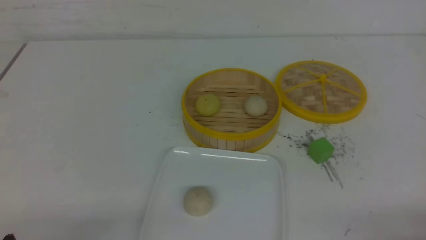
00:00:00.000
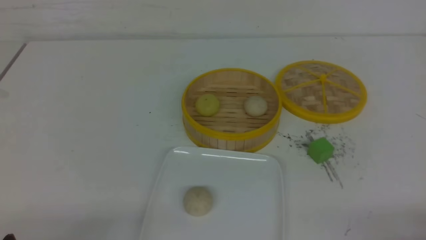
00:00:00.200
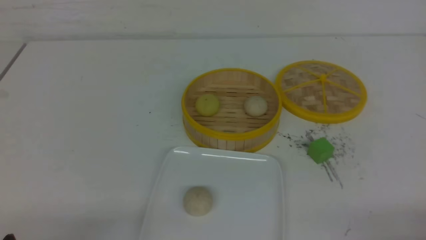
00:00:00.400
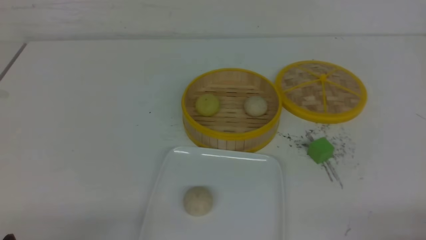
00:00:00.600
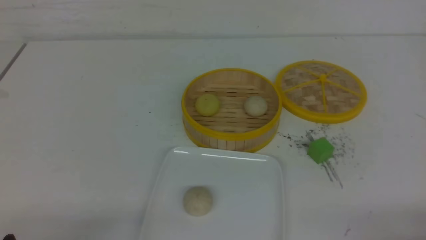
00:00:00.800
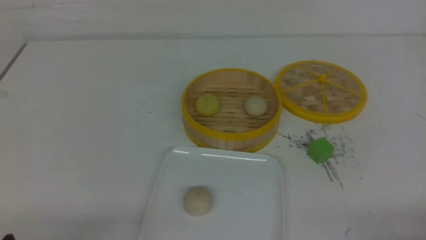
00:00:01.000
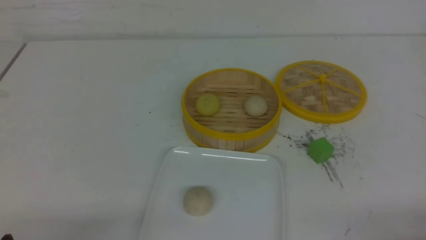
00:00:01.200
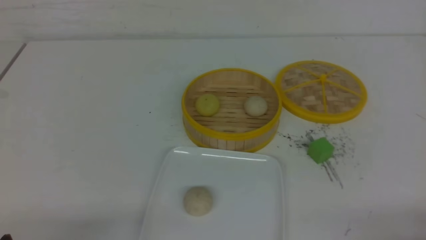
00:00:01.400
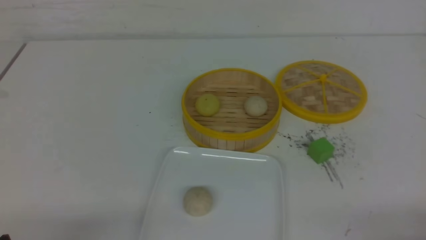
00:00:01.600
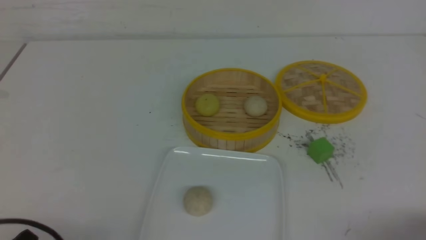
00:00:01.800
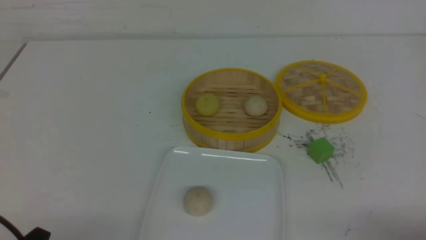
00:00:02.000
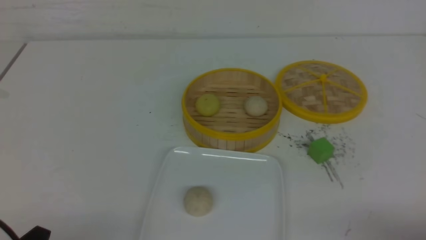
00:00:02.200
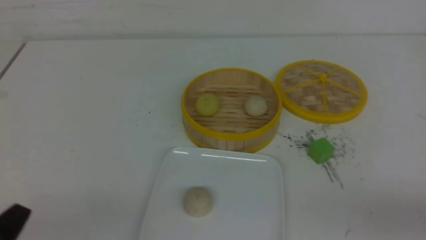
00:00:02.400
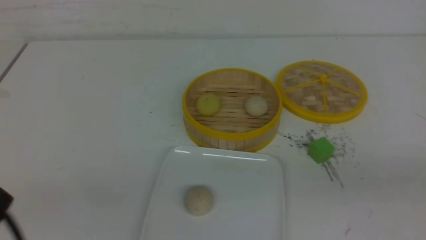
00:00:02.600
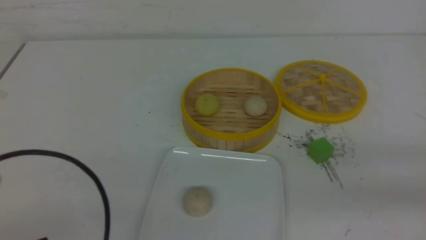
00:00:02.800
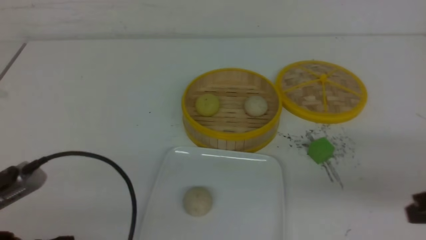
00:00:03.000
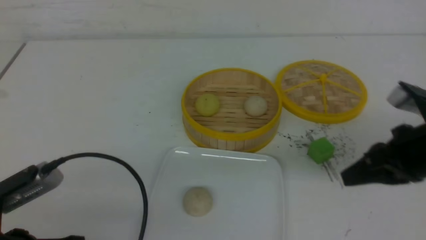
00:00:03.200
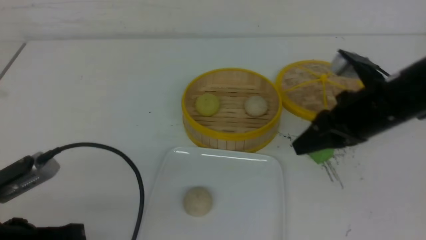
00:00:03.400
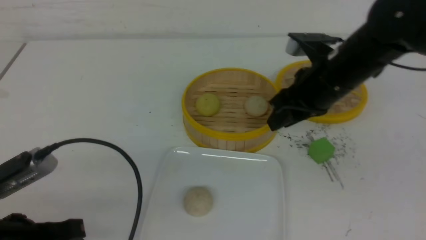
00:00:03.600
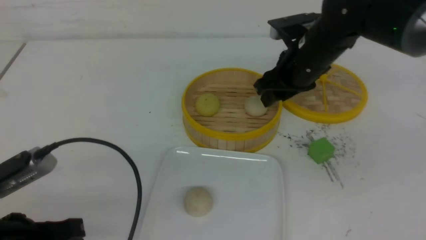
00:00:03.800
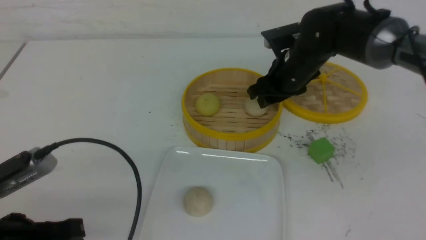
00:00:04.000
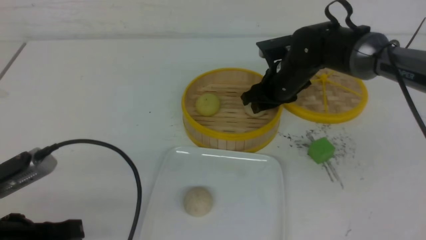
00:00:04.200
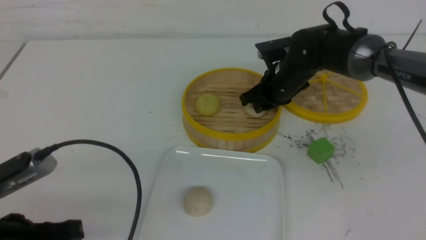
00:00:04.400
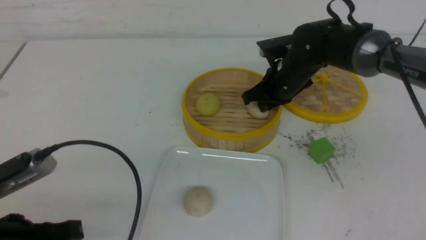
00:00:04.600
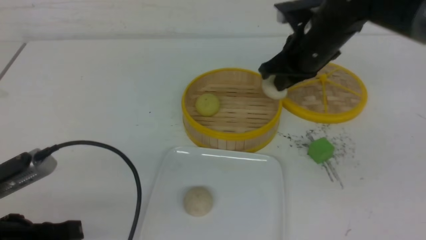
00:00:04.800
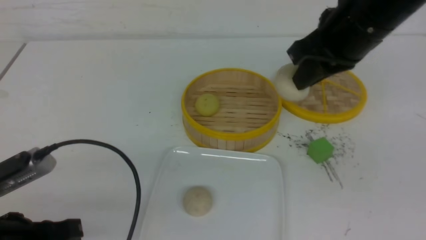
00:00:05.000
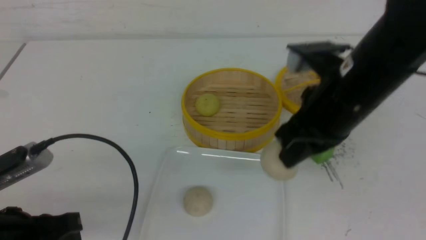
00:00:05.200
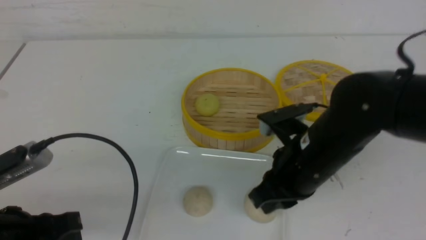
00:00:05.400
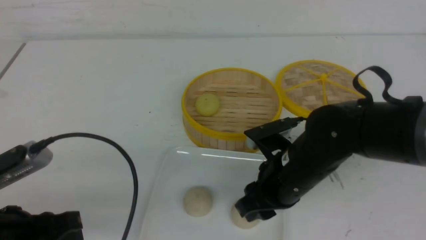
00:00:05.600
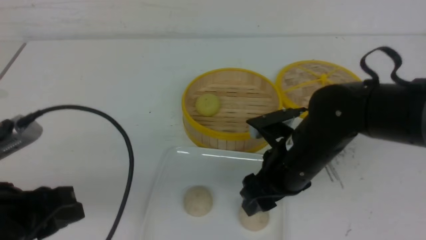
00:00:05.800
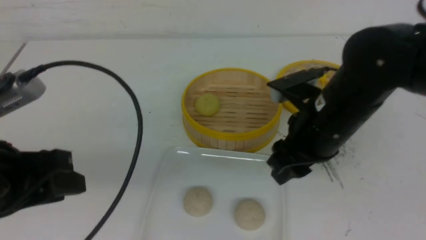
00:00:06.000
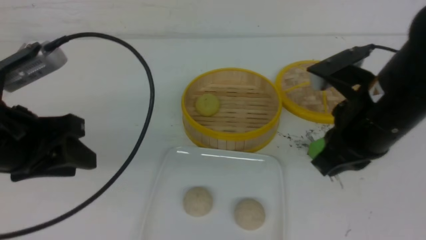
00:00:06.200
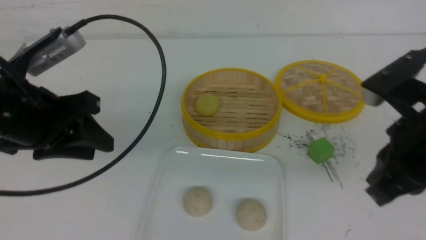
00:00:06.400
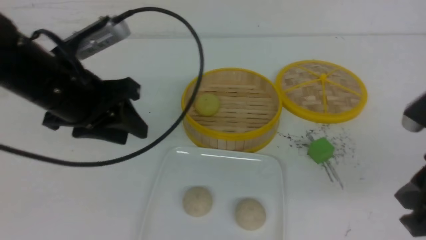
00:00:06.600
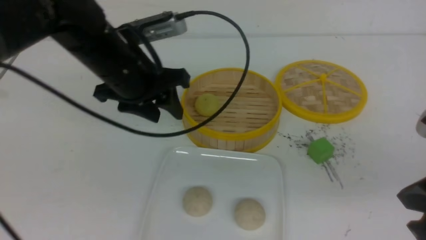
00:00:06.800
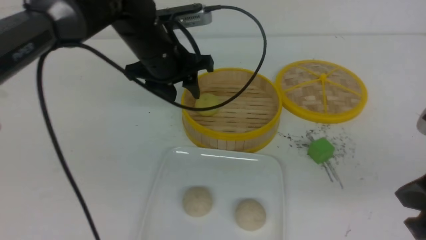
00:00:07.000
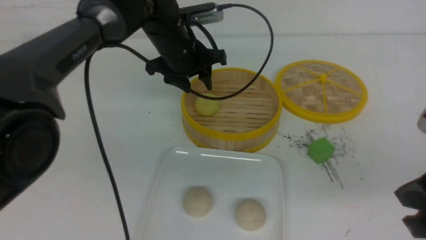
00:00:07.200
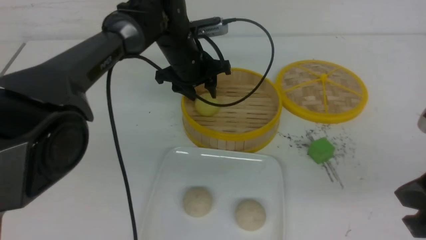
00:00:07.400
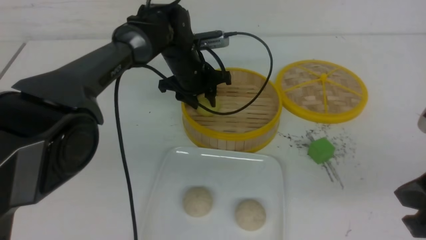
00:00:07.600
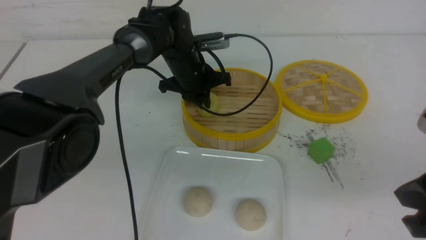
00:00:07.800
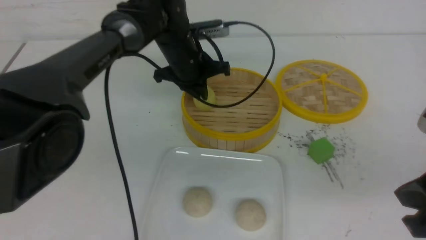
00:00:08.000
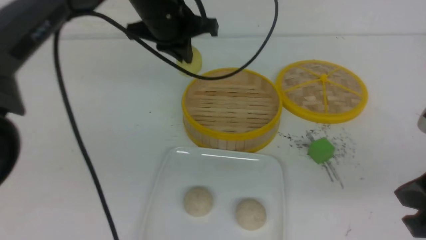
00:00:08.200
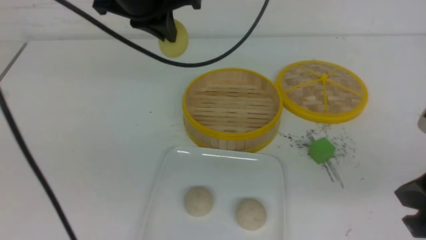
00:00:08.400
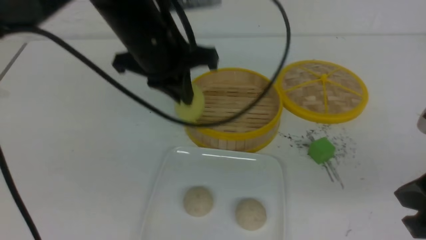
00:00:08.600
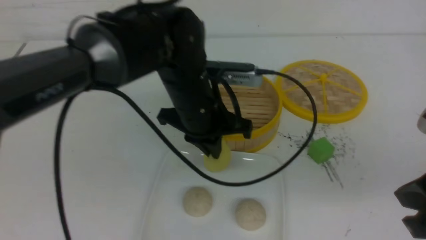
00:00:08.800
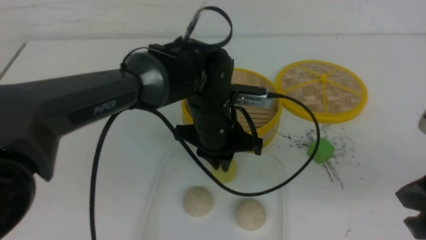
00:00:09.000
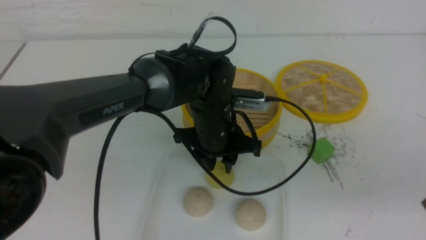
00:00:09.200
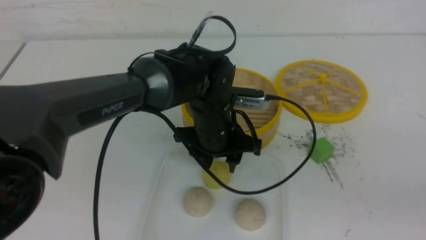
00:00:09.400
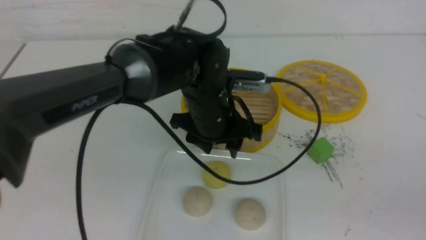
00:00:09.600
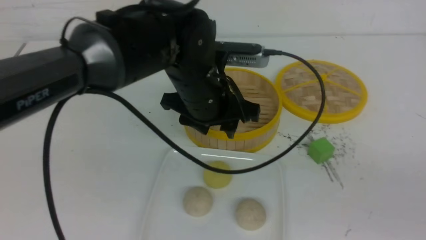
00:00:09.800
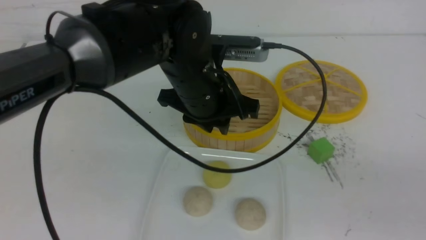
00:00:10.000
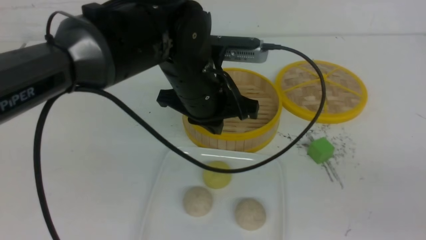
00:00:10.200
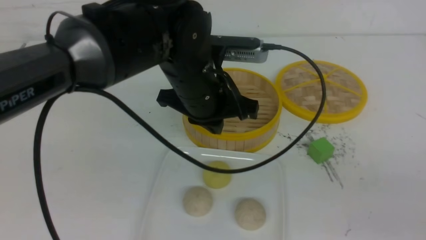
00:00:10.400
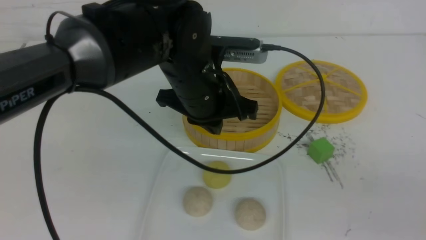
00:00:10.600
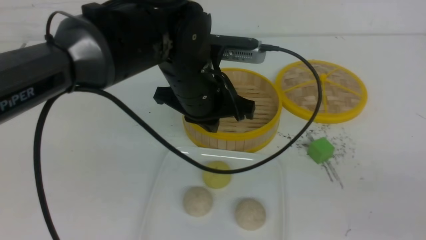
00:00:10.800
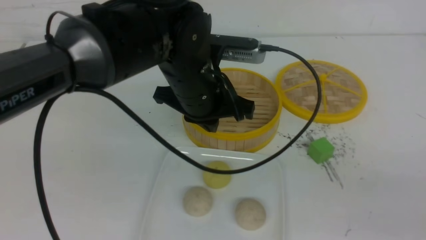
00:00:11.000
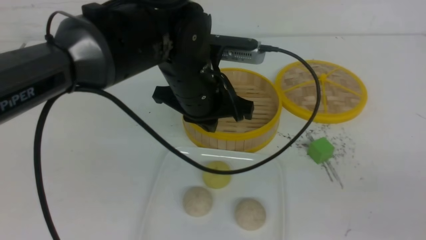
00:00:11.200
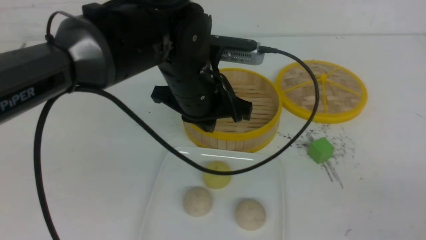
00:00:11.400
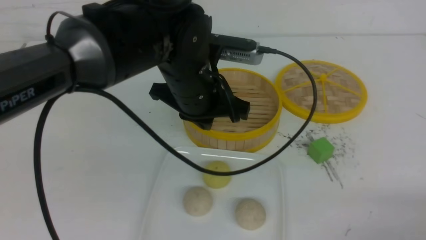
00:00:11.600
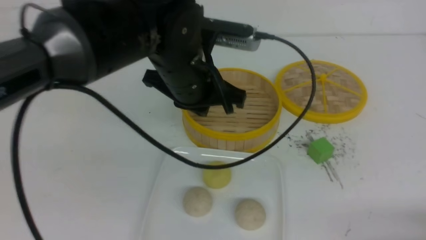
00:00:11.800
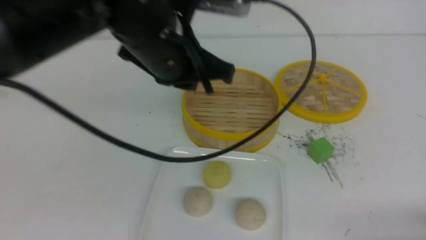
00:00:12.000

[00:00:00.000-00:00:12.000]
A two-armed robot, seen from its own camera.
Step, 00:00:00.000 to 00:00:04.600: use the right arm to grab the steamed stuffed bun that is closest to it.
Step, 00:00:04.800 to 00:00:05.800: use the right arm to put the steamed stuffed bun into the plate.
Step, 00:00:06.000 to 00:00:07.800: use the left arm to grab the steamed stuffed bun that is closest to it.
Step, 00:00:08.000 to 00:00:09.400: use the left arm to put the steamed stuffed bun into the plate.
00:00:01.600 to 00:00:03.000: The right gripper travels forward and upward by about 15 cm, and closes. Meanwhile the left gripper heads upward, covering about 10 cm, and closes up.
00:00:03.000 to 00:00:04.400: The right gripper shifts roughly 30 cm forward and to the left, and opens its fingers.
00:00:04.400 to 00:00:06.000: The right gripper shifts about 20 cm backward, and closes and opens again; the left gripper goes some 5 cm upward, and opens up.
00:00:06.000 to 00:00:07.600: The right gripper moves backward and to the right, approximately 15 cm, and closes its fingers. The left gripper goes approximately 35 cm forward and to the right.
00:00:07.600 to 00:00:09.000: The left gripper moves backward, about 15 cm, and reaches roughly 15 cm upward, then returns.
00:00:09.000 to 00:00:10.400: The right gripper moves backward and to the right, some 10 cm, while the left gripper travels upward by approximately 5 cm, and closes.
00:00:10.400 to 00:00:12.000: The right gripper heads downward, covering some 10 cm; the left gripper moves upward, some 10 cm.

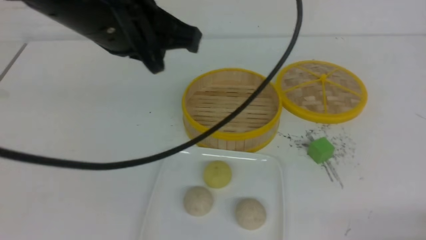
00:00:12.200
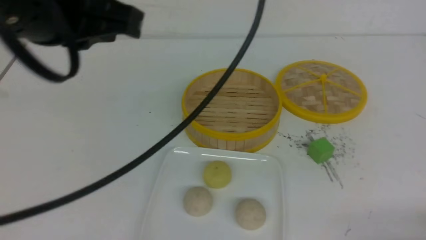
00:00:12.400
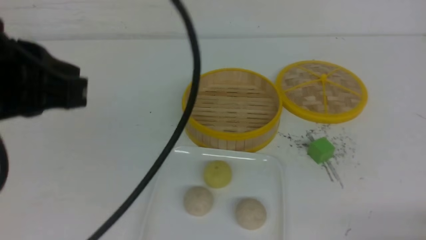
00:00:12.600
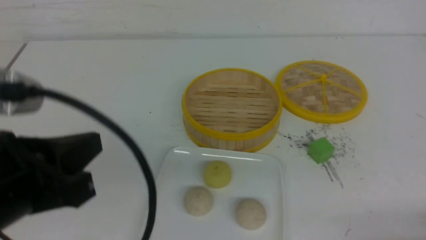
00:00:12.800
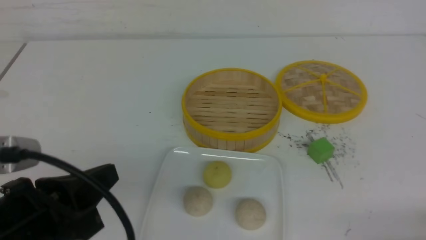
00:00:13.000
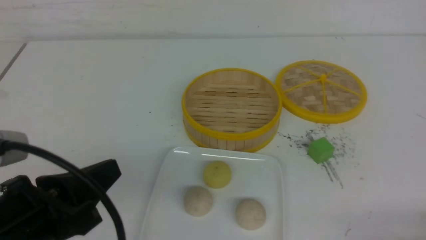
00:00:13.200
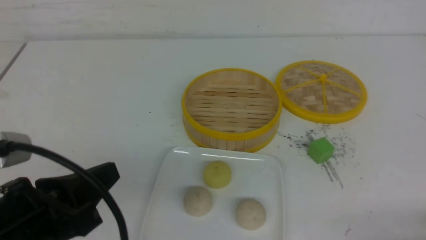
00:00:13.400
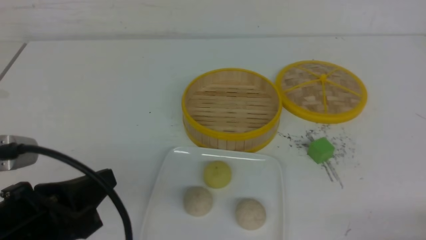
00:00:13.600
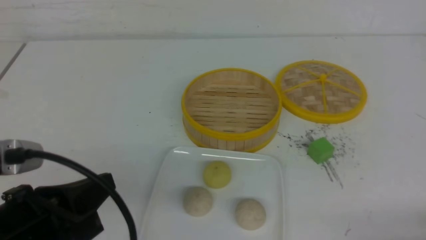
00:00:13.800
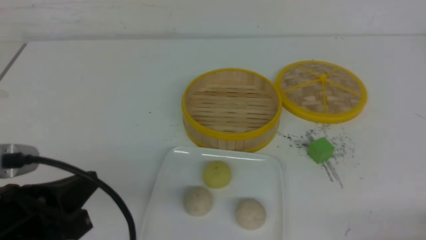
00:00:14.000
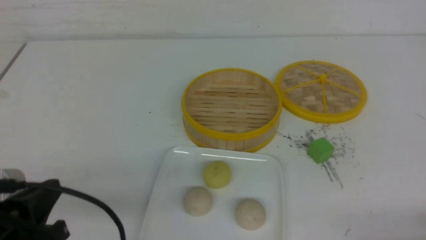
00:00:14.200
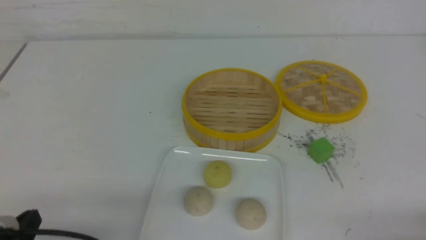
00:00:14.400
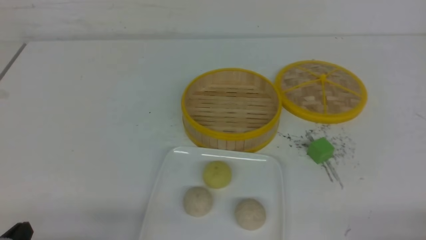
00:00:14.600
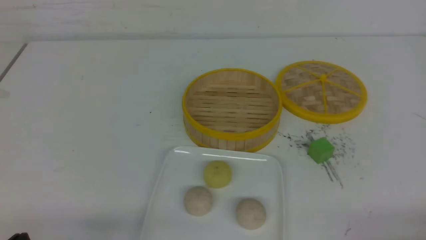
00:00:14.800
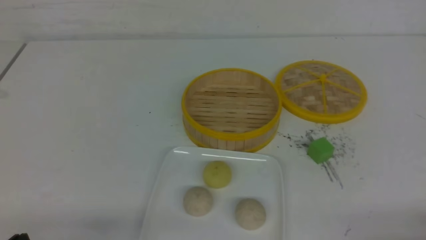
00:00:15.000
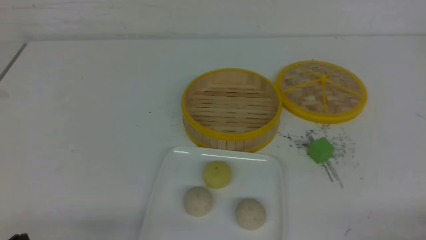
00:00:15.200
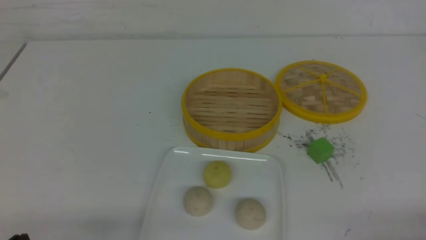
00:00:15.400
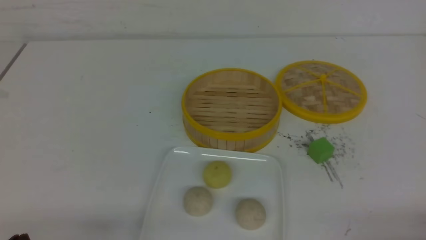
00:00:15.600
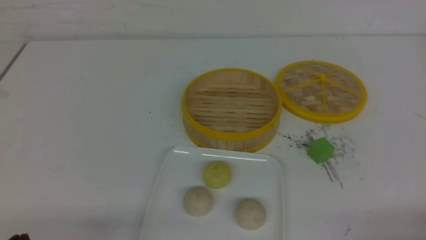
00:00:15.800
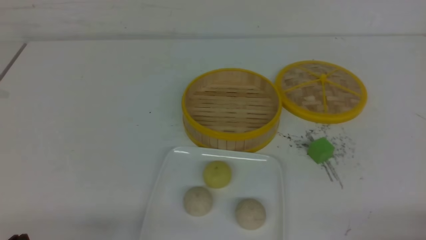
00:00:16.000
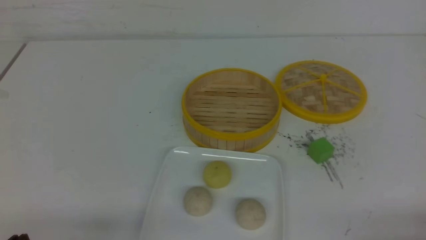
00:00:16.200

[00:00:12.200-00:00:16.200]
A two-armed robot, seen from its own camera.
00:00:12.200 to 00:00:13.600: The left gripper moves downward, backward and to the left, approximately 20 cm.
00:00:13.600 to 00:00:14.800: The left gripper goes some 10 cm downward and to the left.
00:00:14.800 to 00:00:16.200: Neither gripper changes place.
